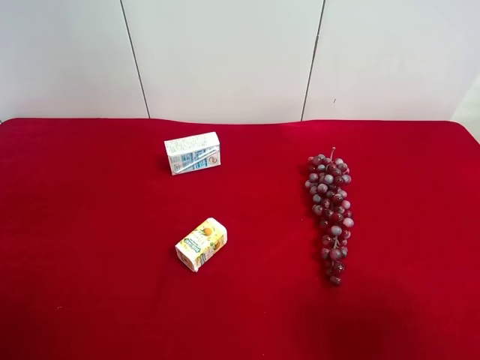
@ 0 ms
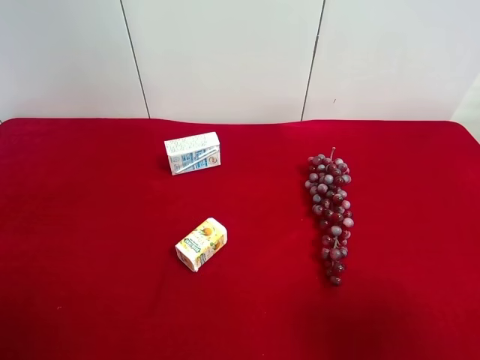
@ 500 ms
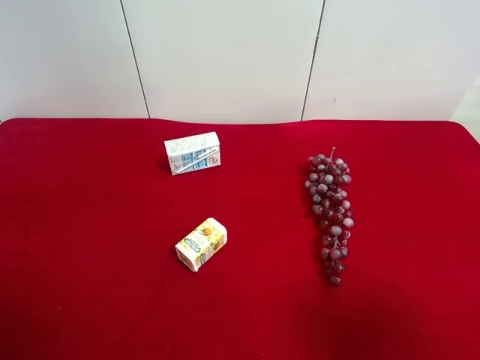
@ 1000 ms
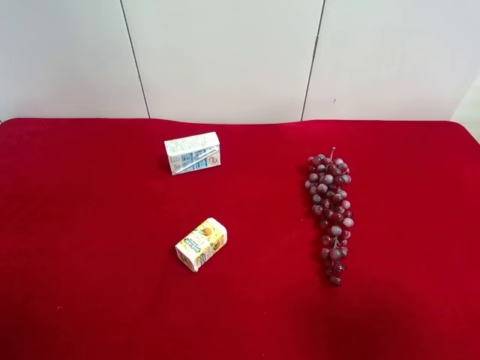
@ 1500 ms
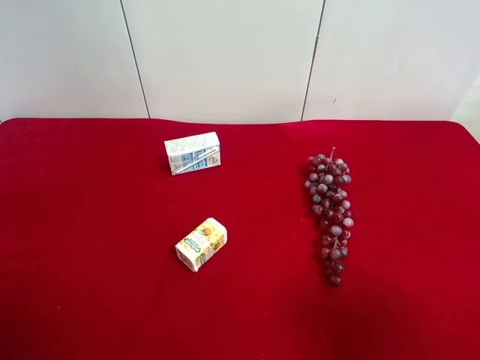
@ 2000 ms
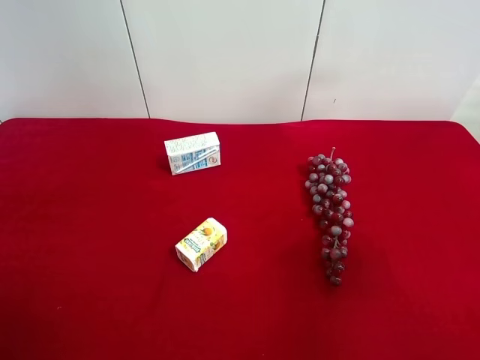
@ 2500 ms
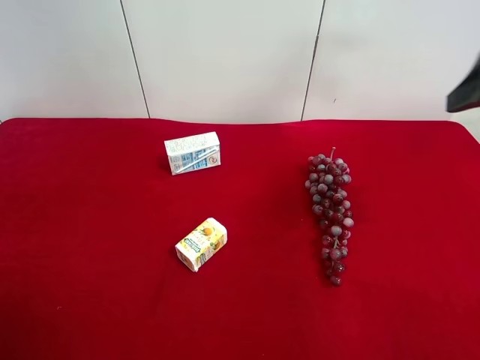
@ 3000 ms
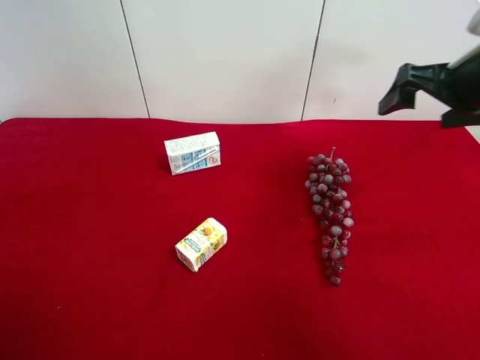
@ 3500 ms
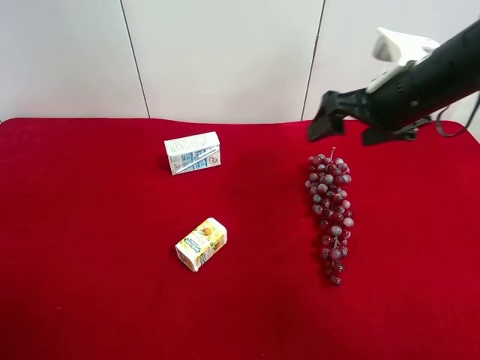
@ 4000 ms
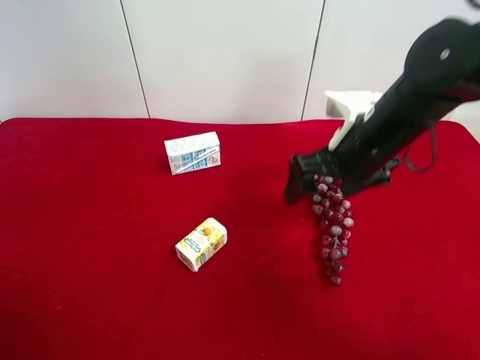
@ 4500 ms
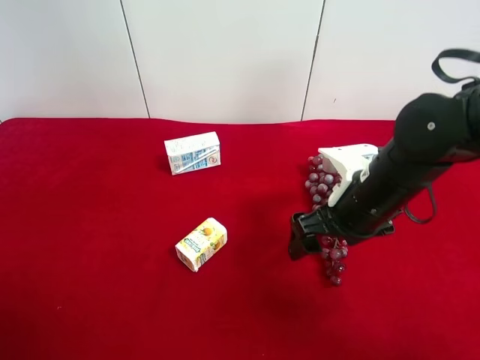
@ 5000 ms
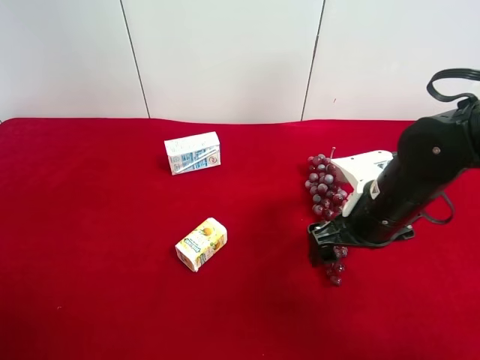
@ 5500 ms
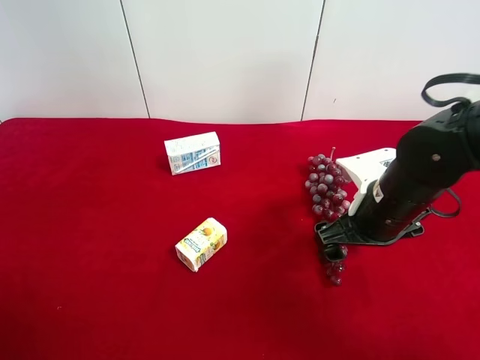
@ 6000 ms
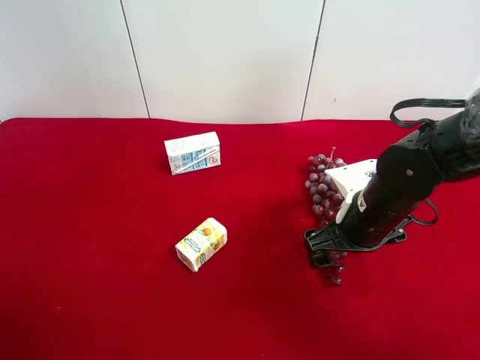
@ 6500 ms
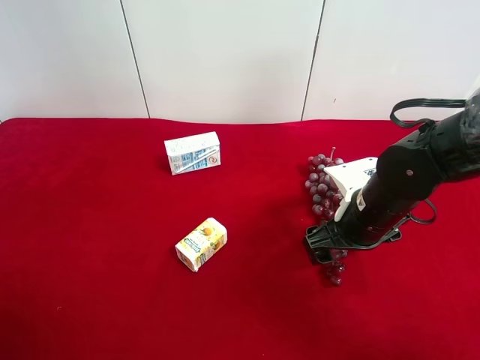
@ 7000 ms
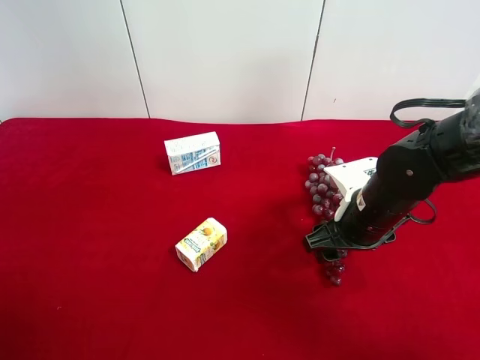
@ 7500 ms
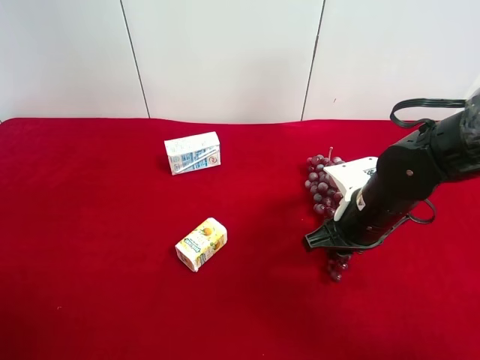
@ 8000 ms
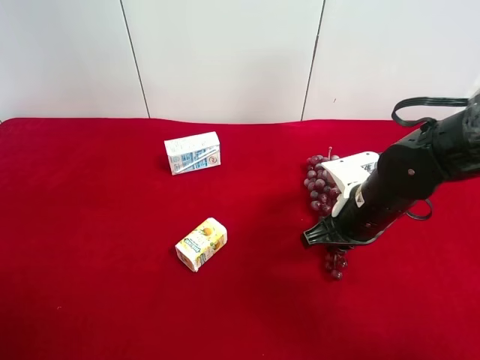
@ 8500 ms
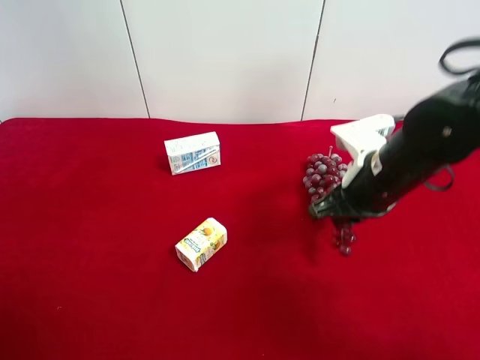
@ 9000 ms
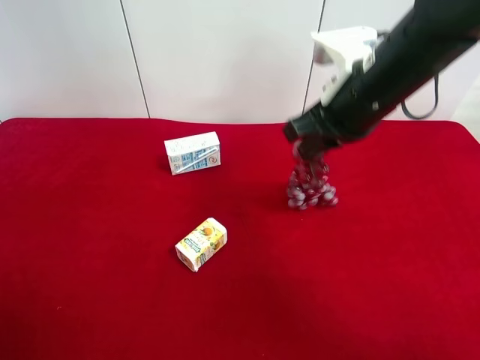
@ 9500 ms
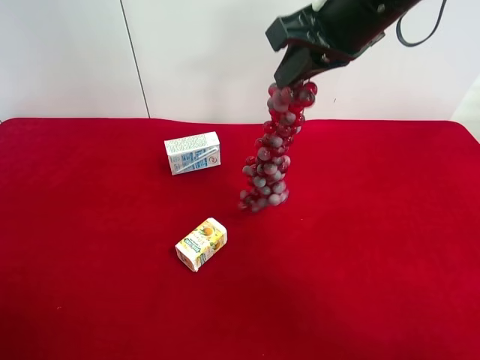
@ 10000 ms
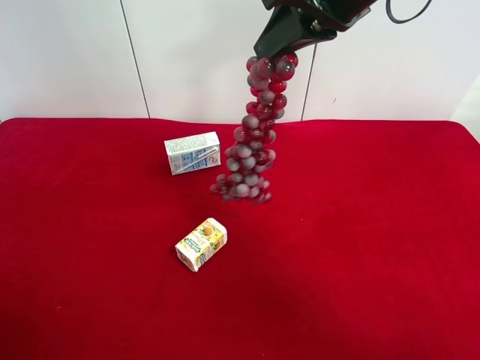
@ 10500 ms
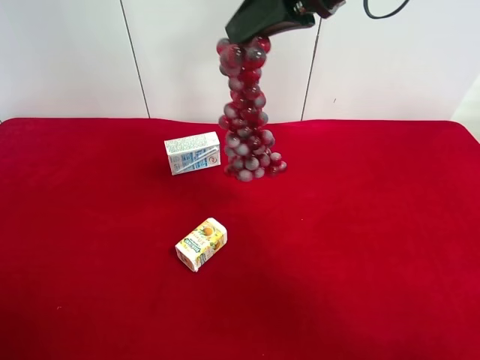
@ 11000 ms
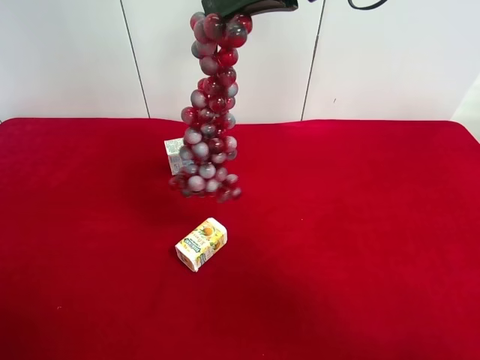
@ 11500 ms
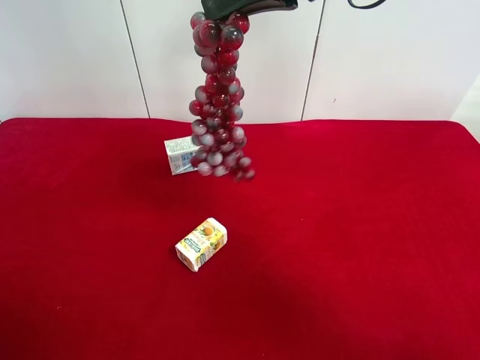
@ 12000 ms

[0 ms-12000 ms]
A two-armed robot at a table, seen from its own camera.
Task of the whole recording: use the right gripper to pick up the item and transfer it from the right gripper to the left gripper.
Step, 0 ms to 8000 ms: Use the right gripper to grab the grape on the right side of the table.
0 ms to 2000 ms: Both grippers stay put.
2000 ms to 4000 ms: The right gripper moves forward, some 30 cm.
4000 ms to 6000 ms: The right gripper goes some 15 cm downward and backward.
6000 ms to 8000 ms: The right gripper closes its fingers.
8000 ms to 10000 ms: The right gripper moves upward, some 25 cm.
10000 ms to 12000 ms: The right gripper shifts by approximately 5 cm.

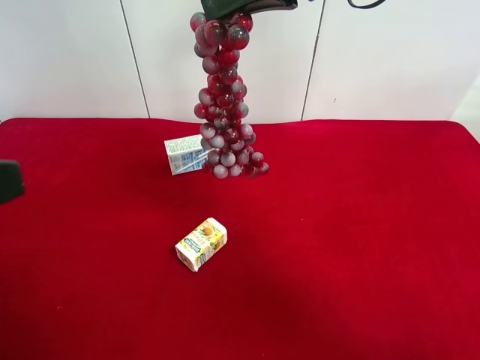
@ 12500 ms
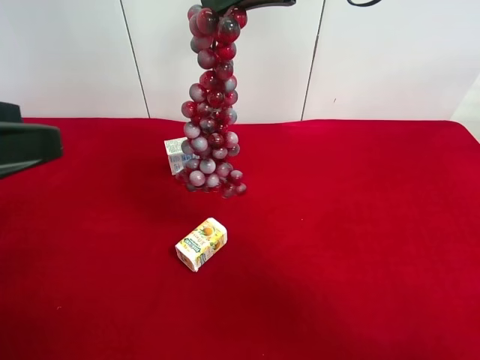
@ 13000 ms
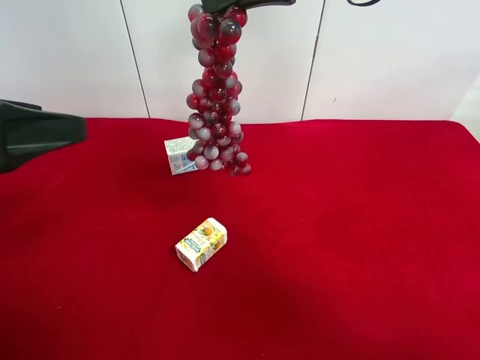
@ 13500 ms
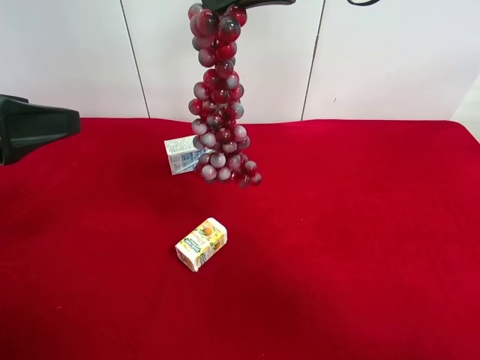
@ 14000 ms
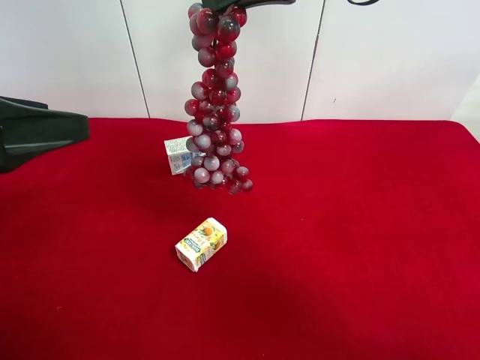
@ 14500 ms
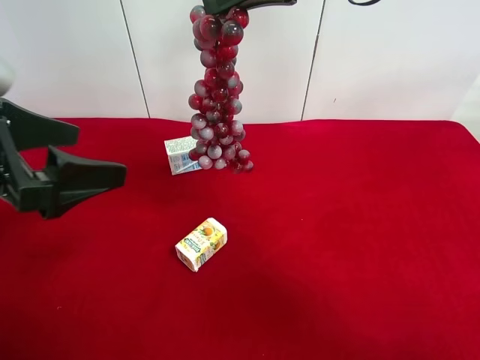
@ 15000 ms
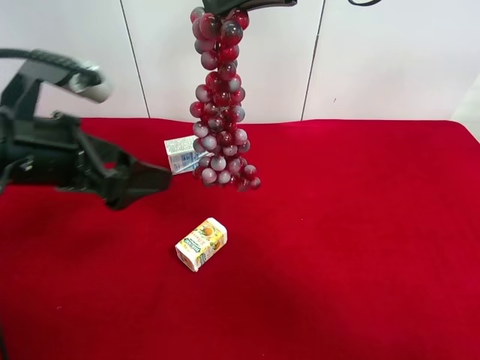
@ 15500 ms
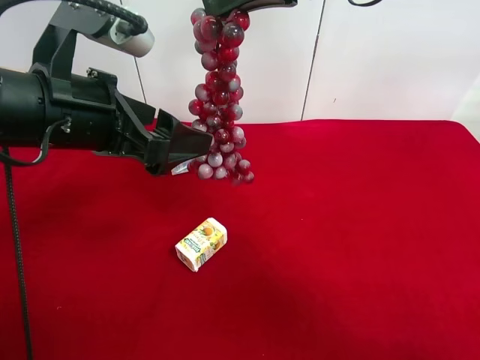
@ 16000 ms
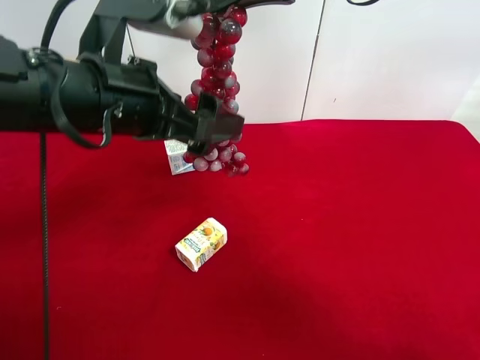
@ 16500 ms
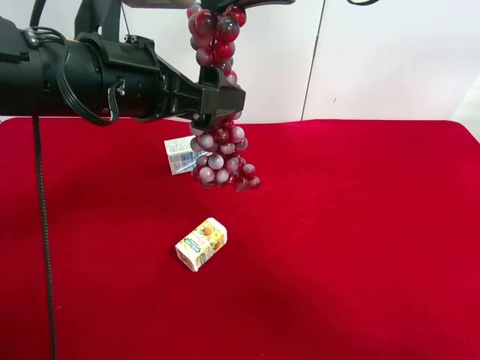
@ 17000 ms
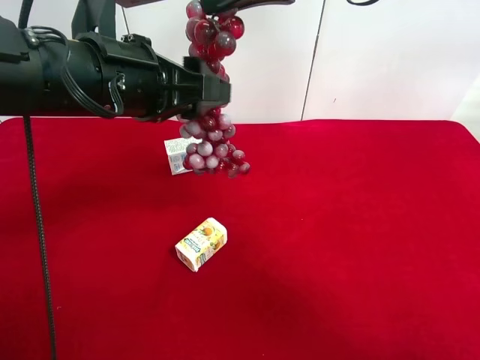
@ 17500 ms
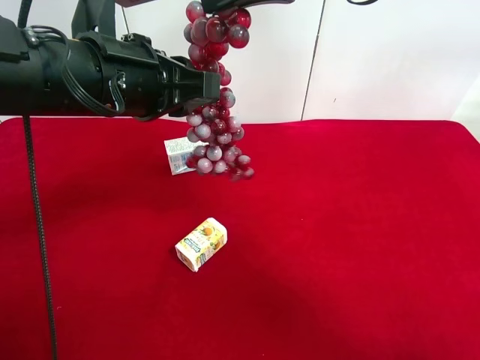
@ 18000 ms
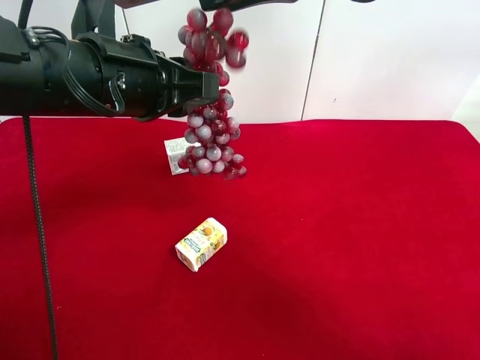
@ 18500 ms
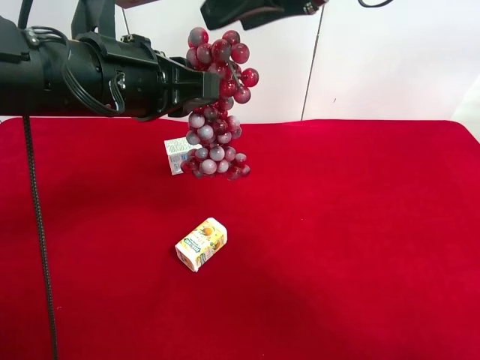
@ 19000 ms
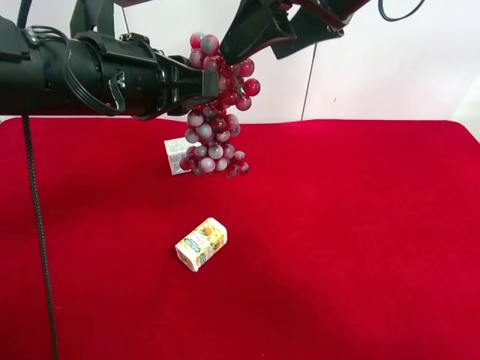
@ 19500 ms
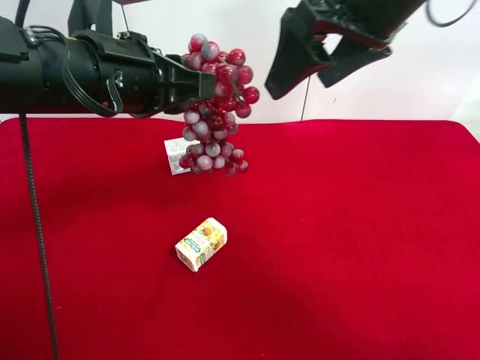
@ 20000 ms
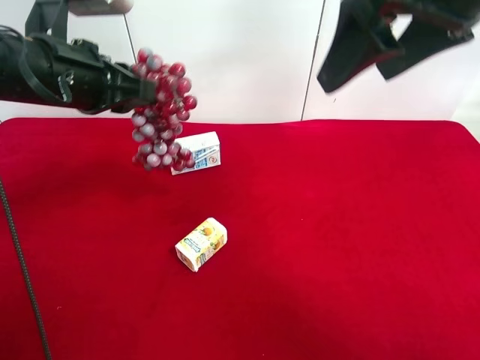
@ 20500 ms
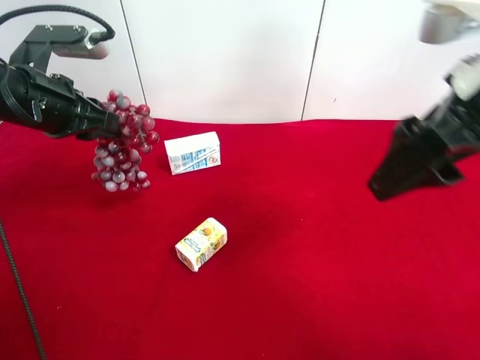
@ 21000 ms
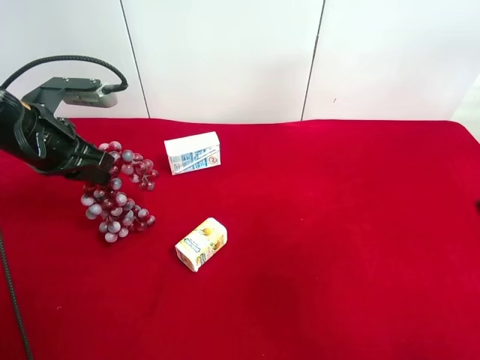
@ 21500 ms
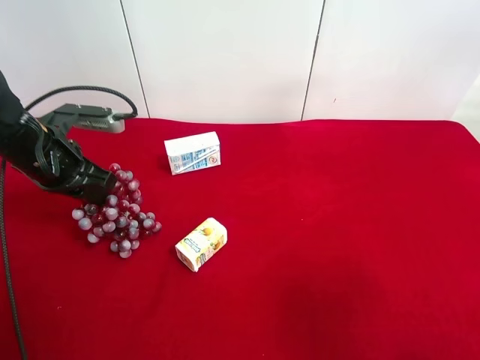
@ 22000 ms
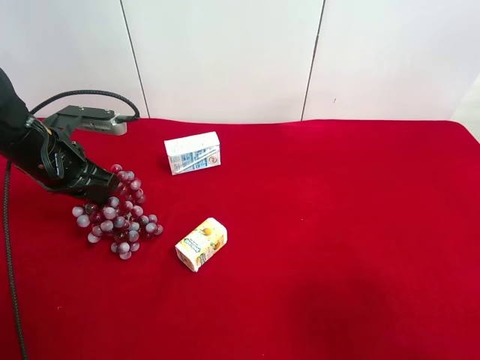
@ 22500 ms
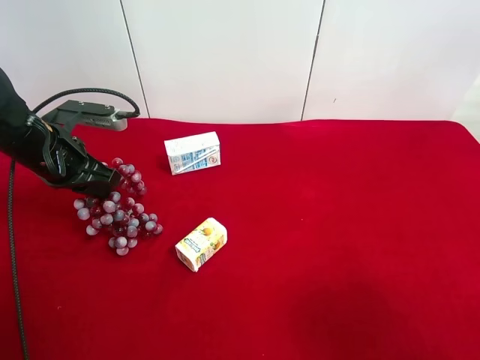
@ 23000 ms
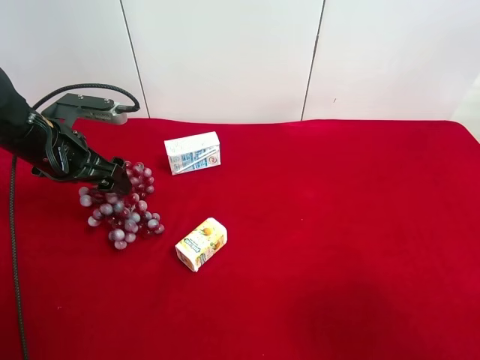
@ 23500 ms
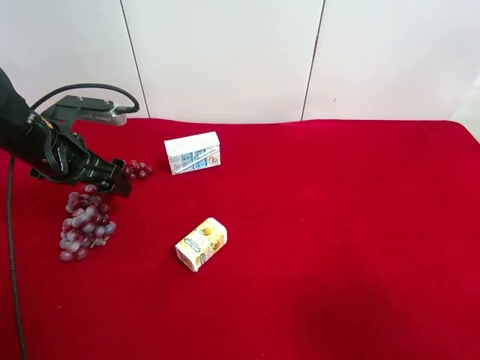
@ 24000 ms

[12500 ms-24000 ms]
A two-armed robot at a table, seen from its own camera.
Task of the whole recording: use the right gripper to pick up the item and transfer it from the right gripper to the left gripper.
Step, 12500 ms to 18500 ms: Pass the grape to the left gripper.
Step, 19000 ms to 23500 ms: The left gripper places grape on the left side of the table.
12500 ms to 14500 ms: The left gripper travels forward by roughly 10 cm.
14500 ms to 16500 ms: The left gripper travels to the right and forward by about 15 cm.
16500 ms to 18500 ms: The left gripper closes its fingers.
18500 ms to 20000 ms: The right gripper opens.
20000 ms to 22000 ms: The left gripper shifts approximately 15 cm to the left, downward and forward. The right gripper is displaced backward and to the right by approximately 25 cm.
22000 ms to 24000 ms: The left gripper opens its fingers.

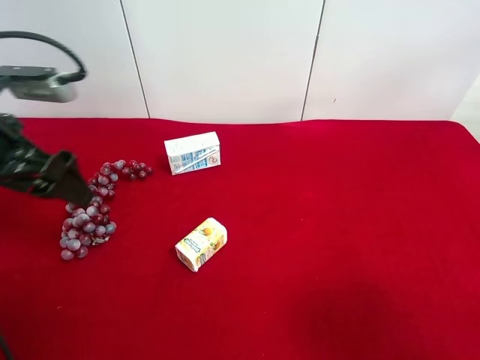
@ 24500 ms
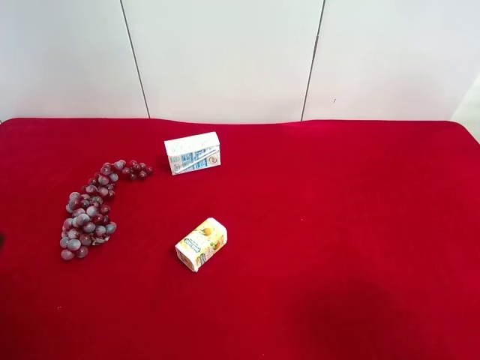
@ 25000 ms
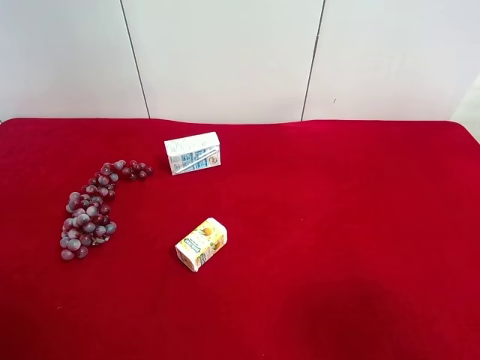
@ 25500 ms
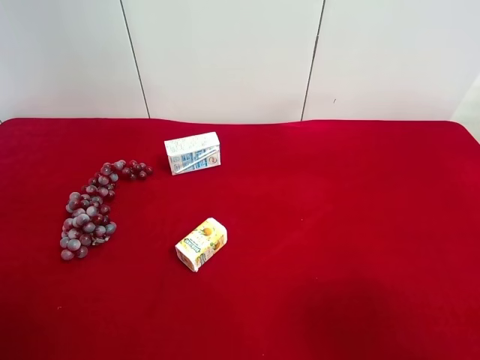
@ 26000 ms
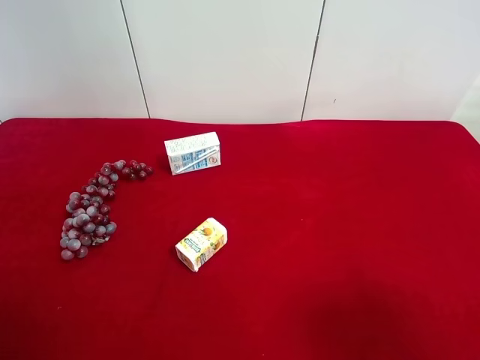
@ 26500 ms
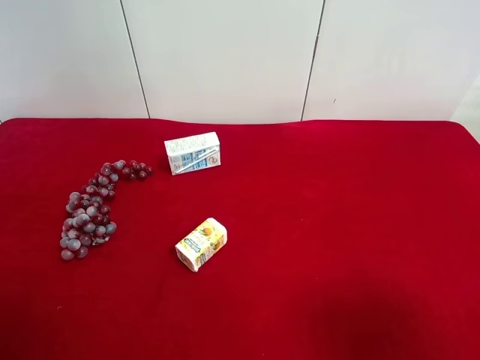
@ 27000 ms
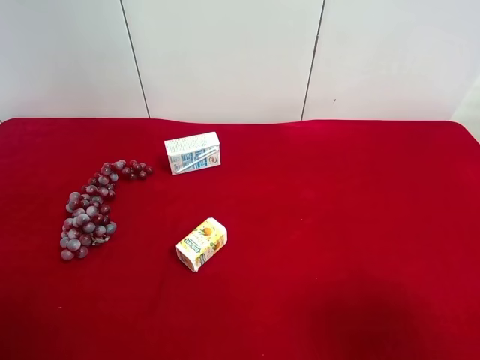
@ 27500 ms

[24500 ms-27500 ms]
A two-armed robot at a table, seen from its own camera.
Task of the whole recording: use the right gripper to pick up the item and transfer it from the right gripper to the left gripper.
24500 ms to 26000 ms: The left gripper is displaced backward by roughly 20 cm.
